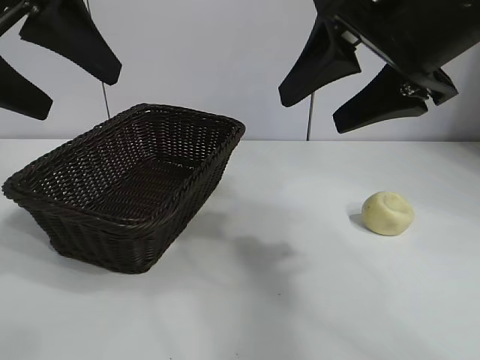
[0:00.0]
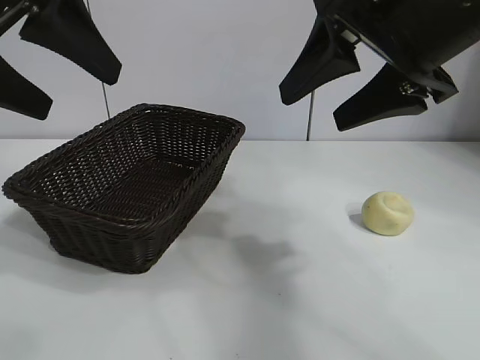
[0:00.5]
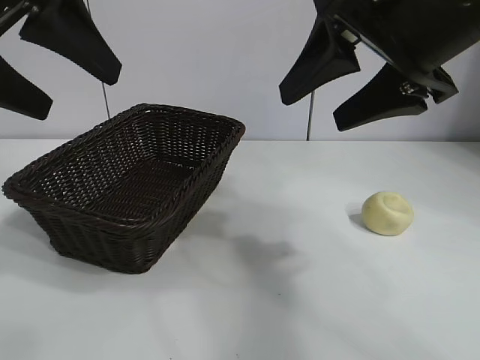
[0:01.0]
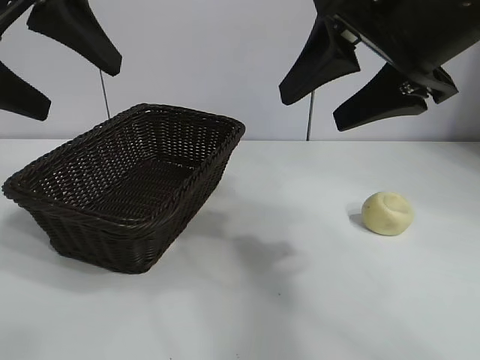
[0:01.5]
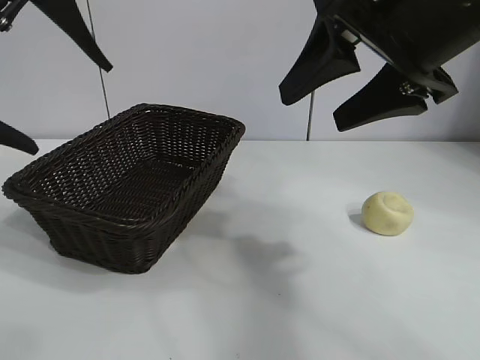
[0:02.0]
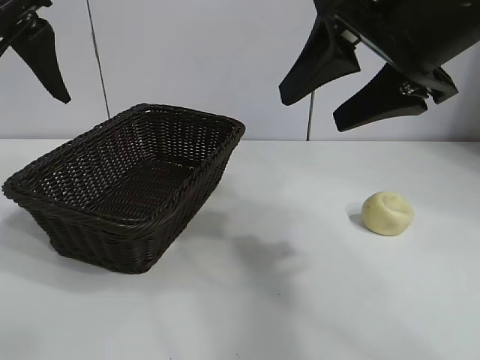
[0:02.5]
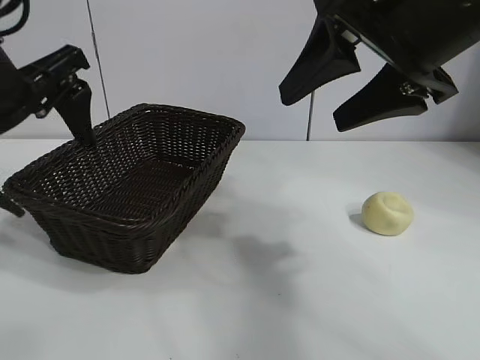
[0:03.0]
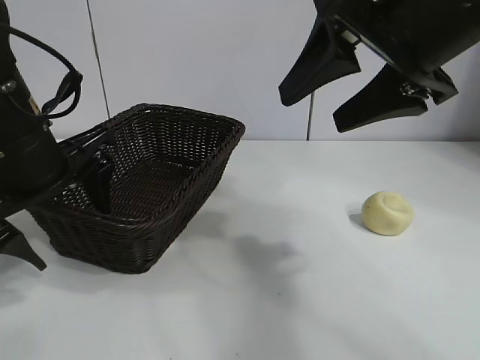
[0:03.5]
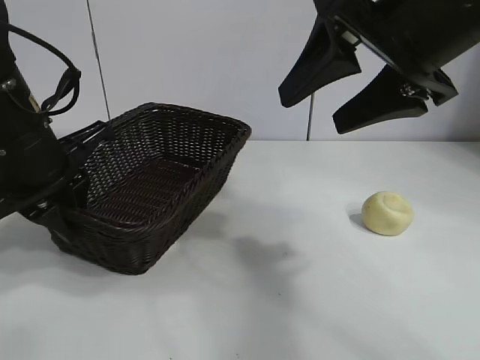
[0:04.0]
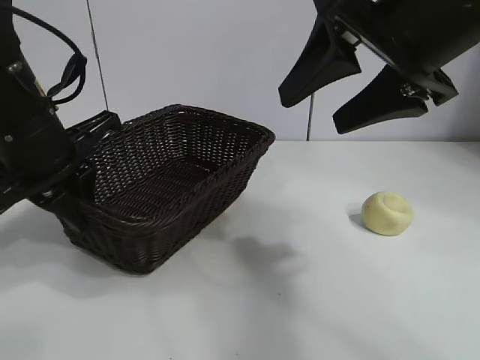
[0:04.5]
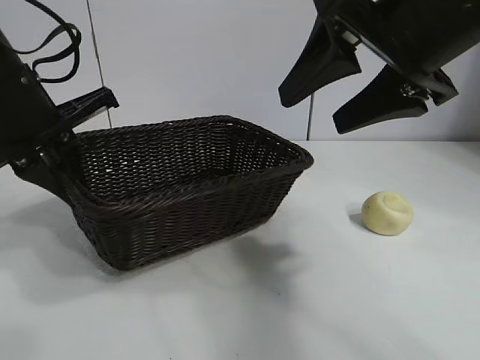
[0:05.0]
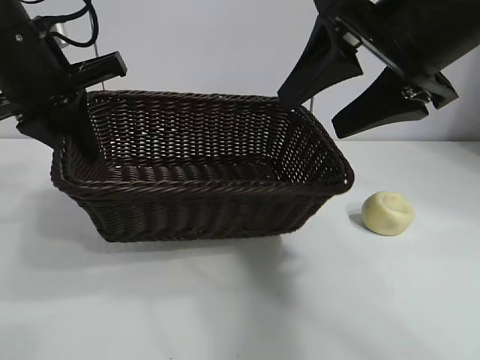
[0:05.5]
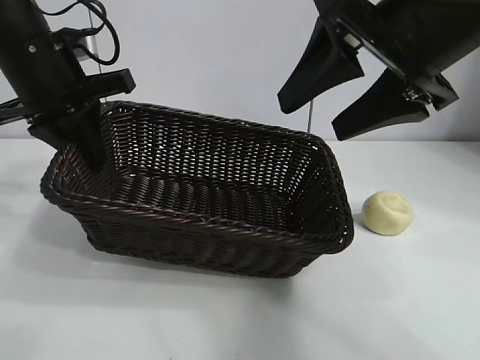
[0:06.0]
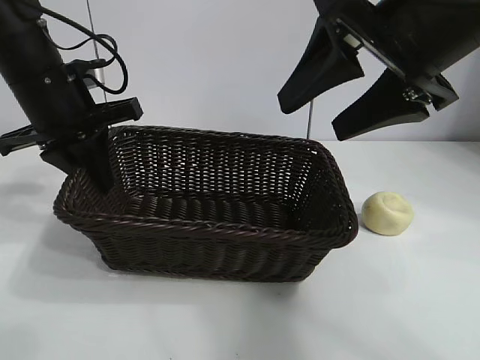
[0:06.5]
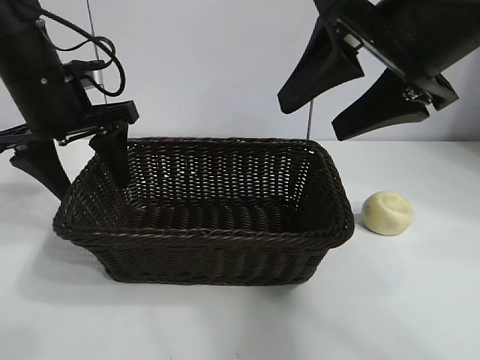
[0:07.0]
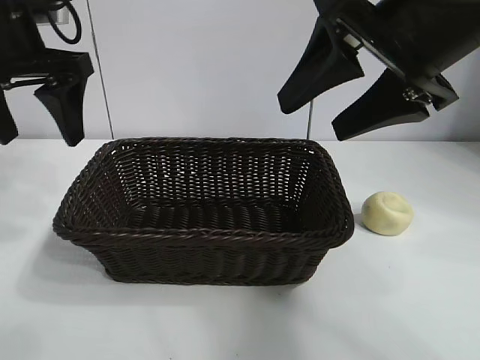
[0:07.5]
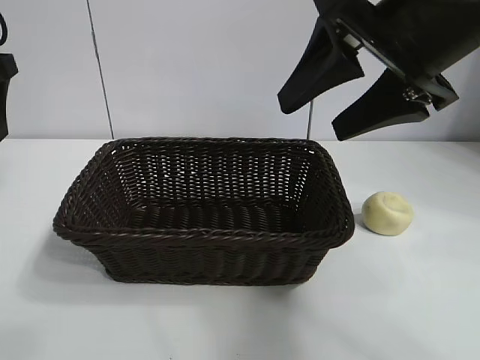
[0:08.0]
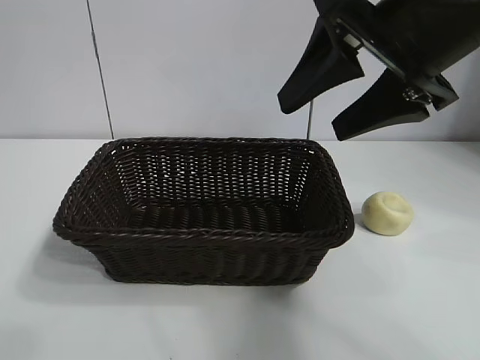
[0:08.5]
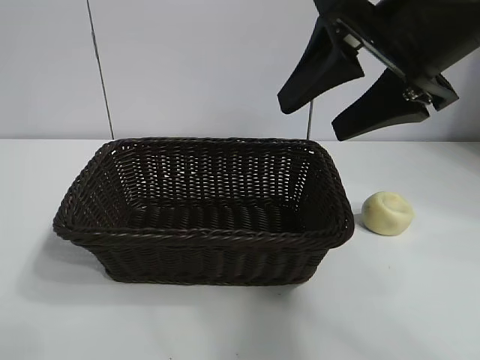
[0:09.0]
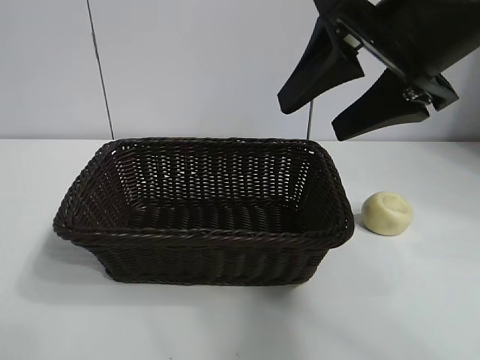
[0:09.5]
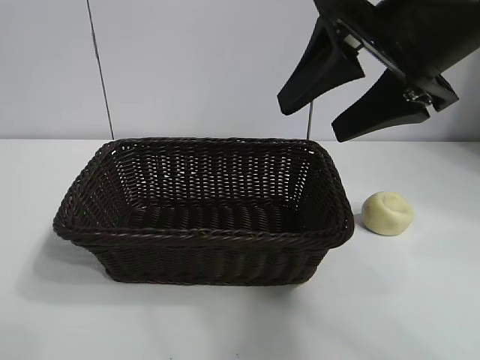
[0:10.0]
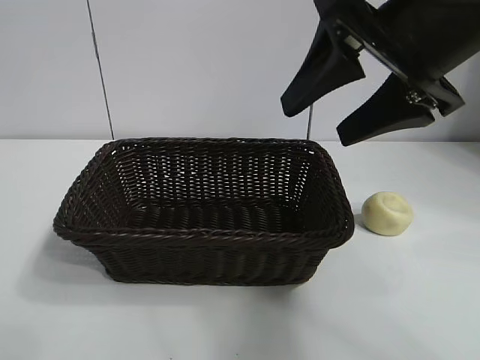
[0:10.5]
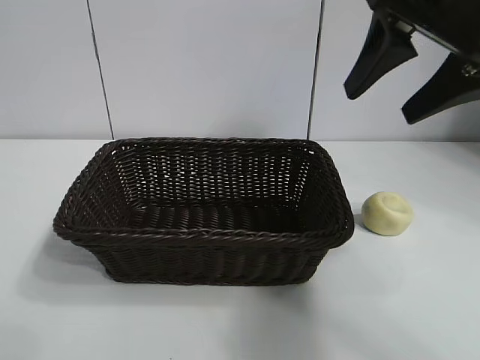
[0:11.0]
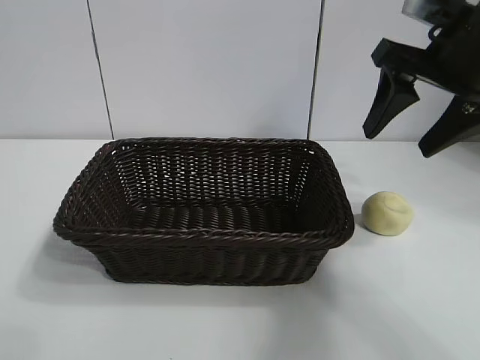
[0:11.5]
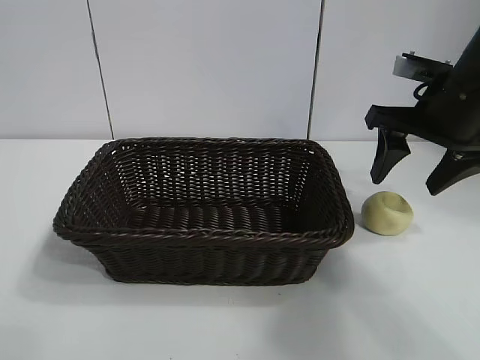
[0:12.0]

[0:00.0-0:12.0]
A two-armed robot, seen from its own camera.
Task of the whole recording: pick up the egg yolk pastry and put it into the basket.
Step, 0:01.5 to 0:04.0: Grasp the basket with left gripper.
Step, 0:04.5 to 0:07.0: Place the basket in the center of view with left gripper.

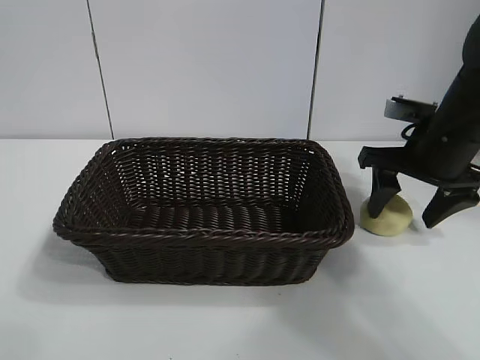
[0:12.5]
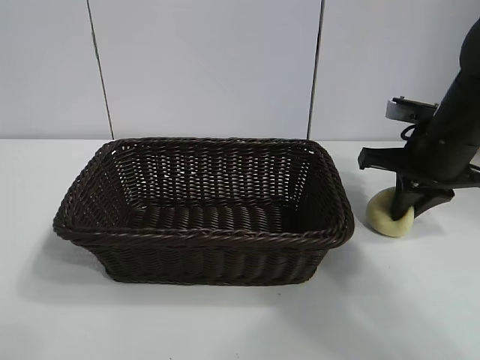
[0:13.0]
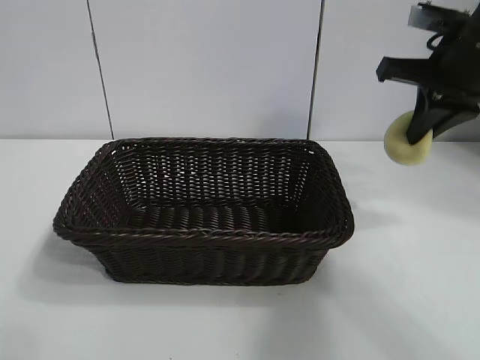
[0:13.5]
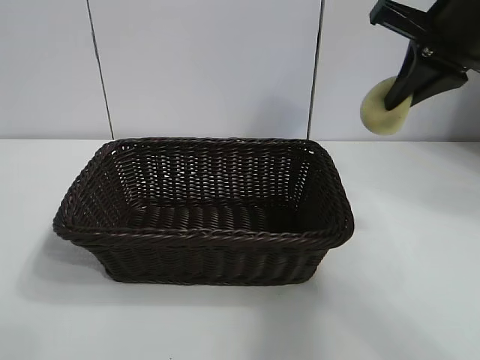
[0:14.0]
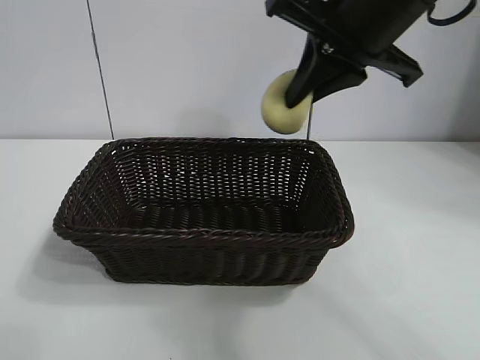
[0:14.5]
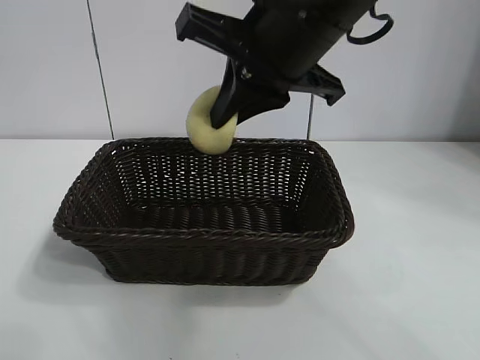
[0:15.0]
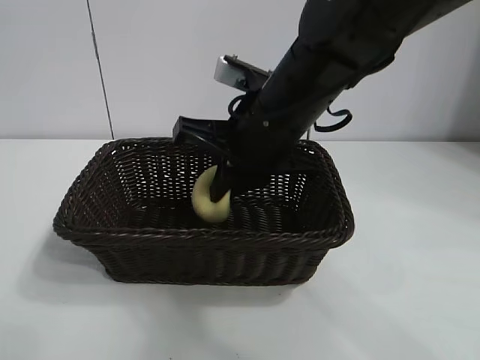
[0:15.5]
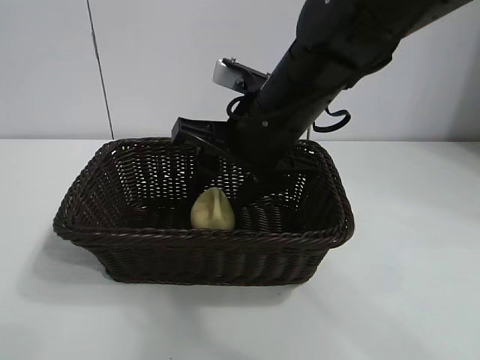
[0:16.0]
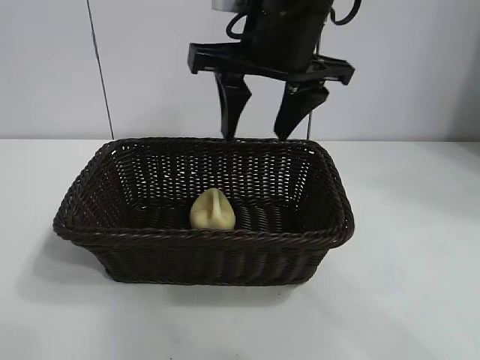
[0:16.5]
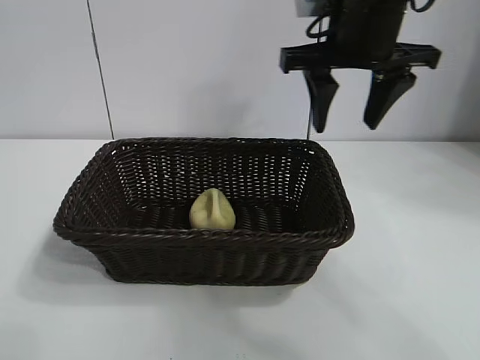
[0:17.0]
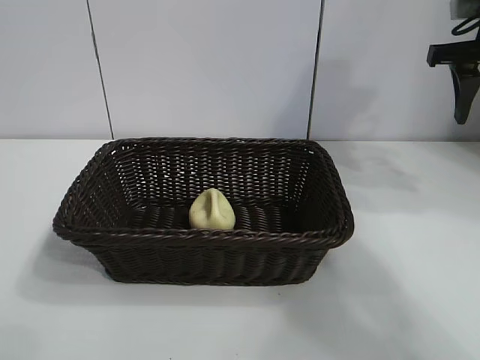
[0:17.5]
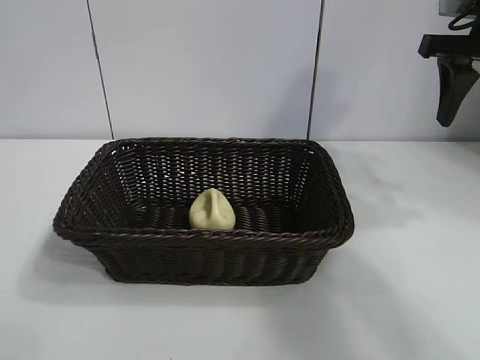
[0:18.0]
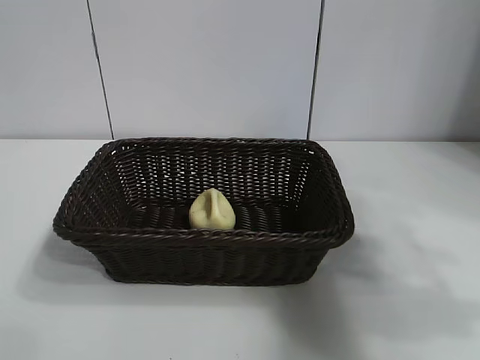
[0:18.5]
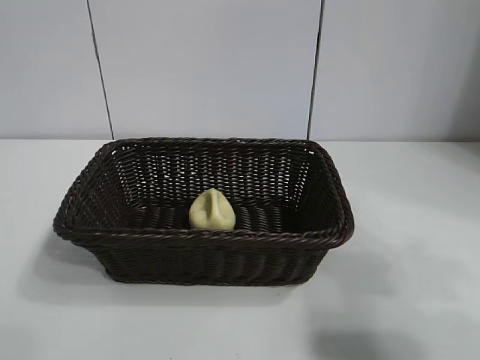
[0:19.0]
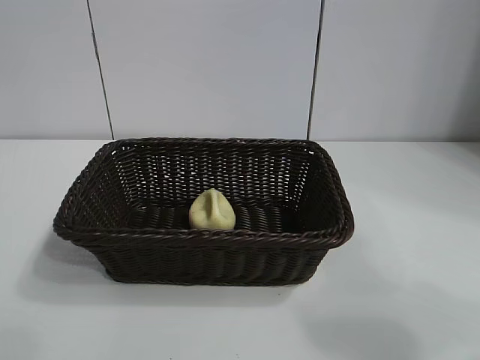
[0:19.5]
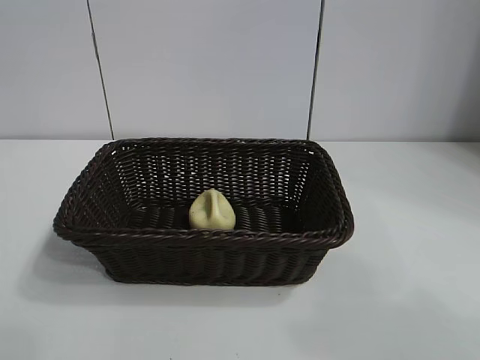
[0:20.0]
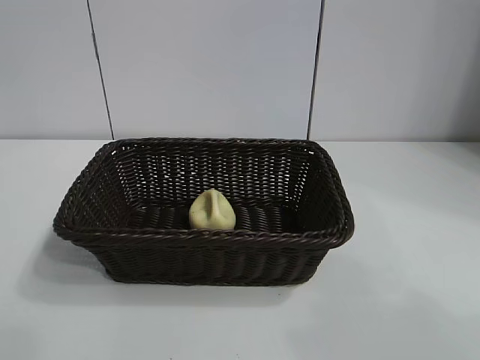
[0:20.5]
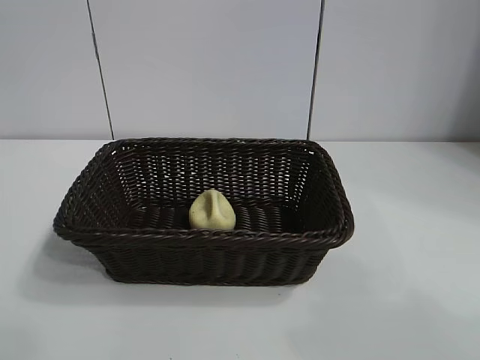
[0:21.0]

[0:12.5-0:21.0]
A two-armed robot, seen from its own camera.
Task of the whole recording: pick up the egg yolk pastry and put it into the basket.
Step, 0:13.5 to 0:16.0: Place the egg yolk pastry in the basket with right gripper.
